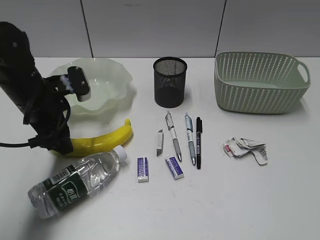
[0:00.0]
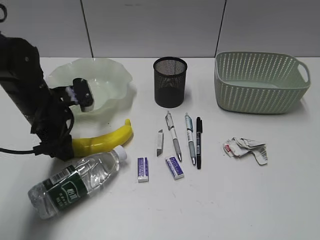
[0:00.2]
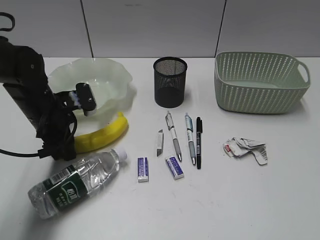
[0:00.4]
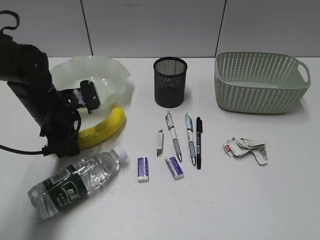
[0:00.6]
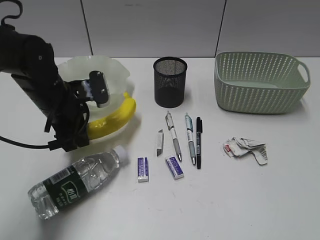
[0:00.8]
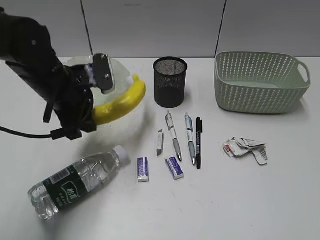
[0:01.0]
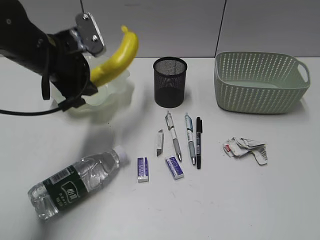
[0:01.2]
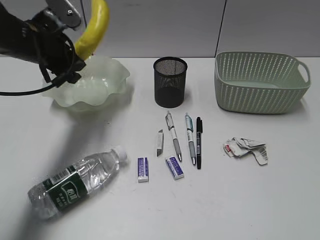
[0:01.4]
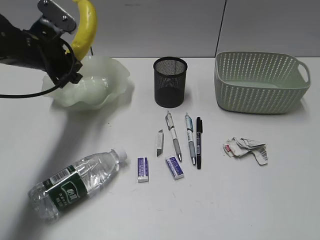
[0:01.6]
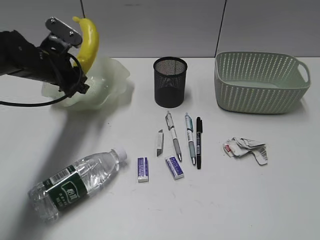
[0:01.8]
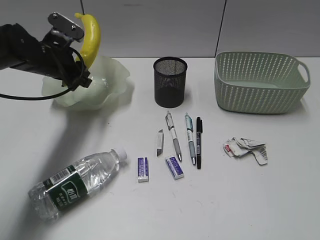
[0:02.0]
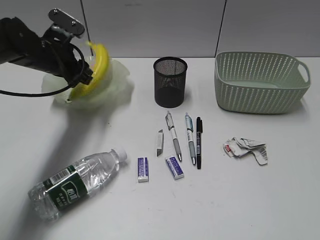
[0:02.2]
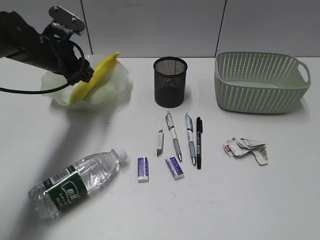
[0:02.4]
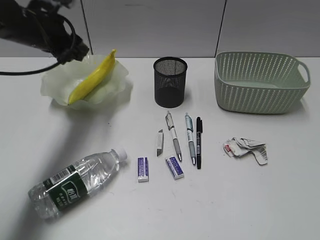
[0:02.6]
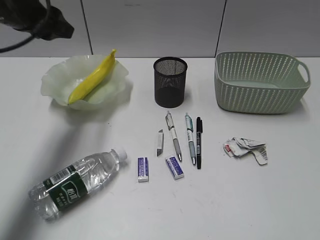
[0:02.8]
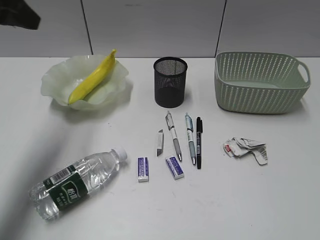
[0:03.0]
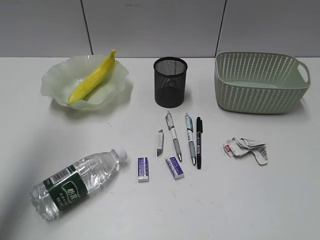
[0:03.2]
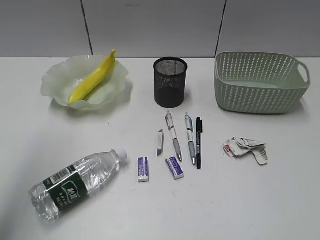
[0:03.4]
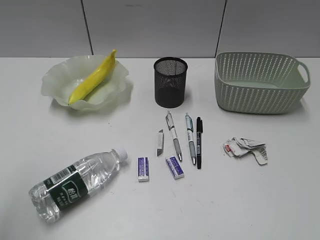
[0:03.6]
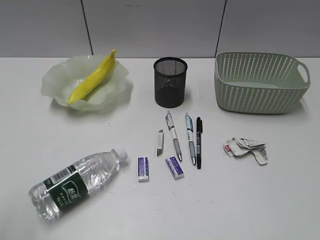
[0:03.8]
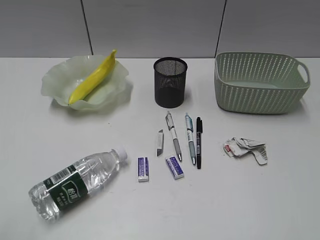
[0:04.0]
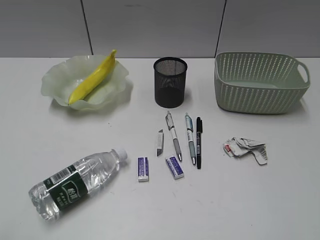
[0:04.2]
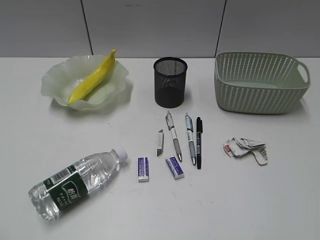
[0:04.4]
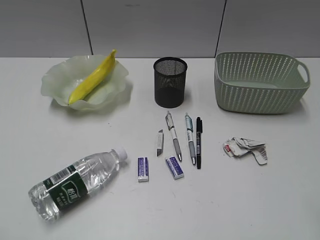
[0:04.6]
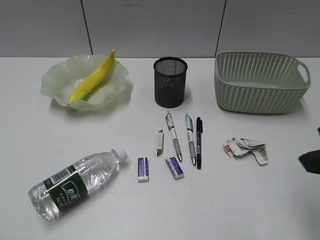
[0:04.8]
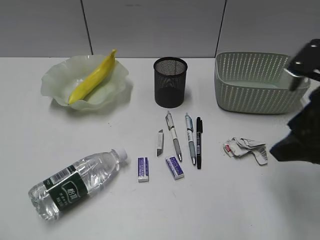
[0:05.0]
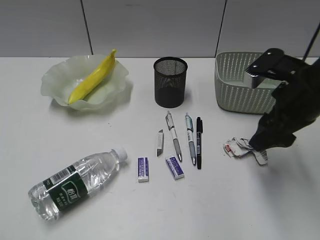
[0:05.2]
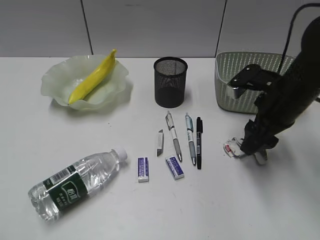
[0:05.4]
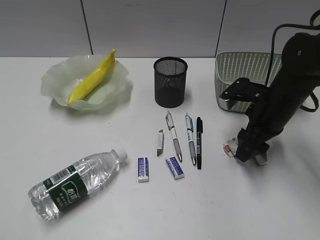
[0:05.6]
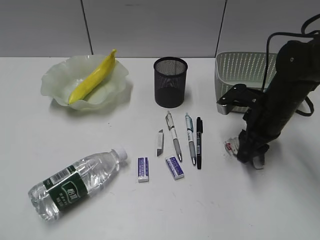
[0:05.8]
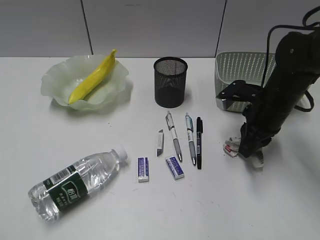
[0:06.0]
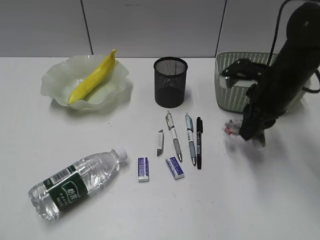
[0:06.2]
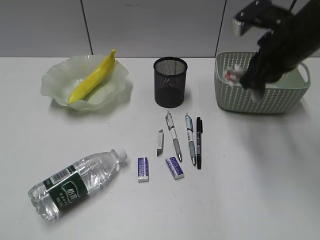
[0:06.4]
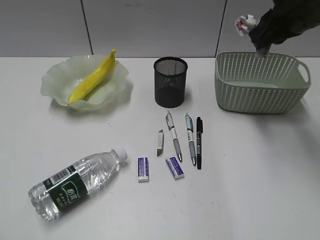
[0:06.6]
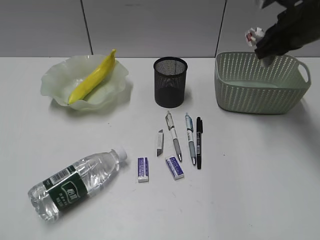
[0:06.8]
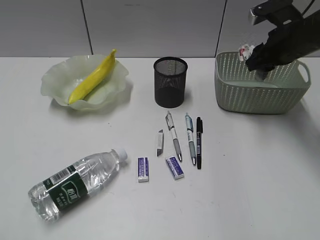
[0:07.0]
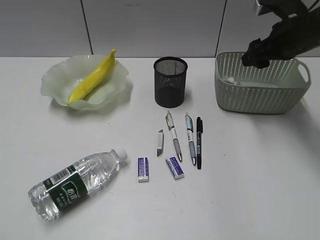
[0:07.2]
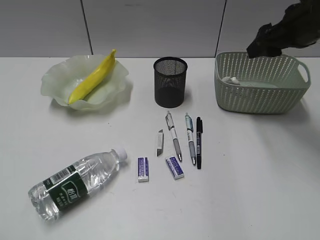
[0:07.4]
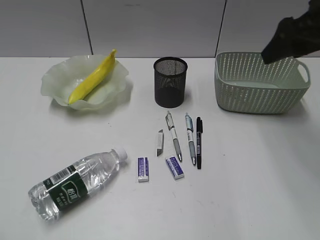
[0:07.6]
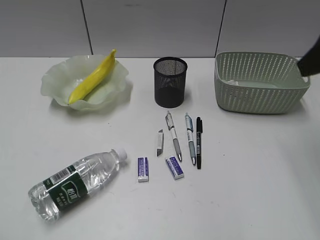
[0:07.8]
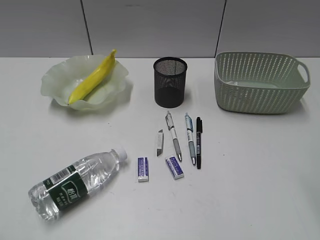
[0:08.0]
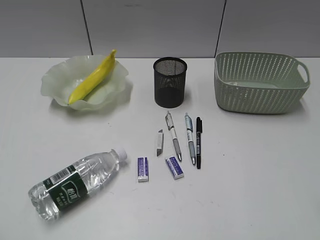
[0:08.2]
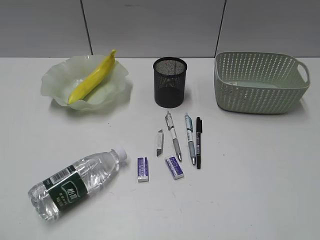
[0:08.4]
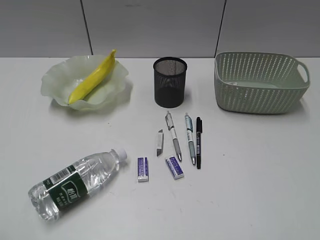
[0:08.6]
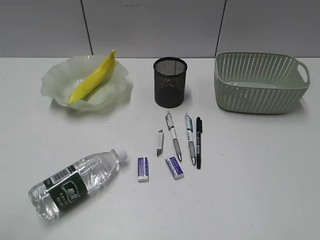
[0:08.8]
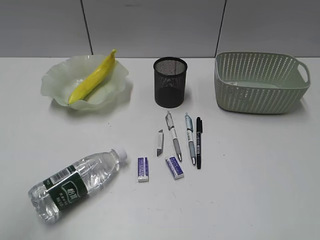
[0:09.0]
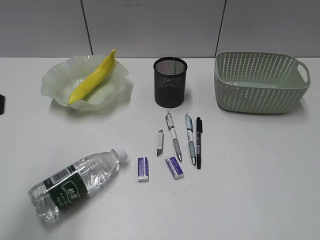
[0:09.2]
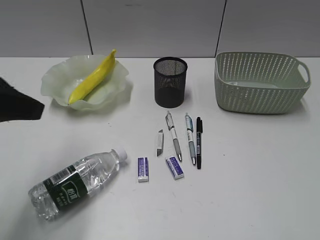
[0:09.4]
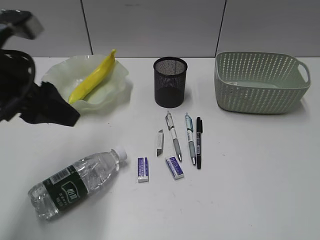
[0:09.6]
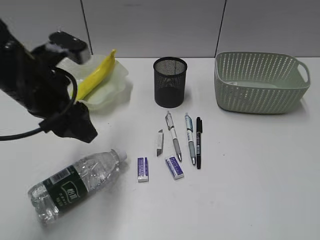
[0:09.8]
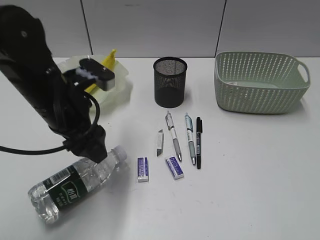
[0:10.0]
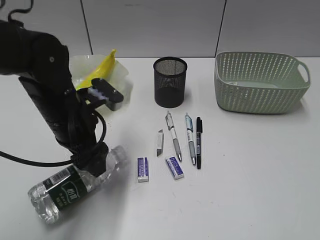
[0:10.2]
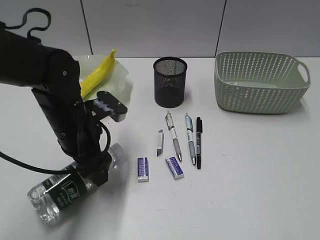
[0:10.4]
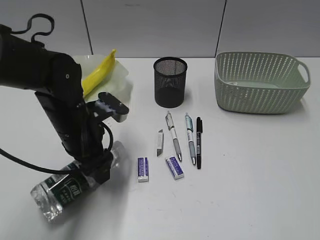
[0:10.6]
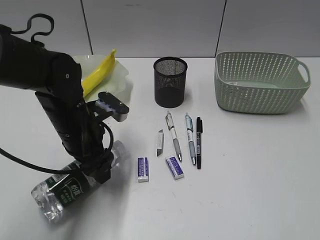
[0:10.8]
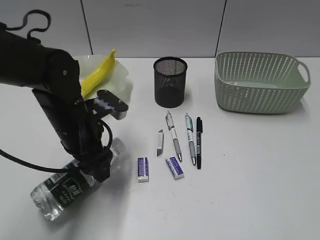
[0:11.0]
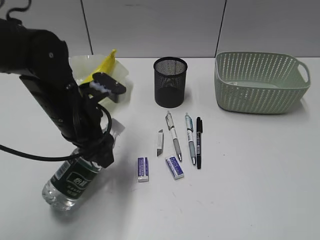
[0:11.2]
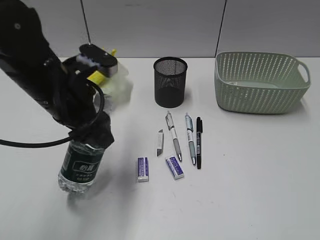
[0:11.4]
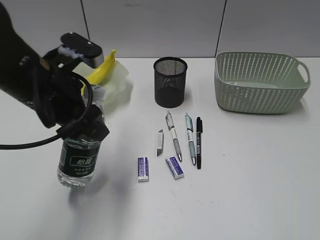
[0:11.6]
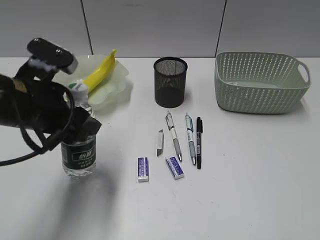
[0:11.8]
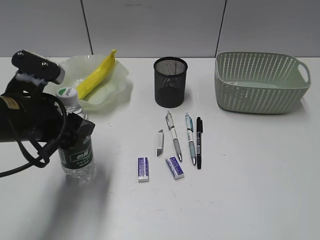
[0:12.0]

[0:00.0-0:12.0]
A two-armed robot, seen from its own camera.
Step, 0:00.6 to 0:02.4: Place the banana in the plate with left gripper.
Step, 0:02.6 to 0:05.8: Grasp the waste paper with right gripper.
Step, 0:06.0 to 0:07.2: Place the waste paper in the basket with right gripper.
Step, 0:07.4 to 0:10.6: Grasp the bottle with left gripper.
0:00.0 to 0:01.6: The left gripper is displaced forward by roughly 5 cm, goes upward and returns, approximately 5 cm each way, and closes up.
0:01.6 to 0:03.0: The left gripper moves upward and backward, roughly 15 cm.
0:03.0 to 0:04.4: The left gripper travels backward by roughly 35 cm.
0:04.4 to 0:06.0: The right gripper travels forward and downward by approximately 35 cm, and closes its fingers.
0:06.0 to 0:07.6: The right gripper swings up and down, roughly 20 cm each way, with 2 reversals, and opens.
0:07.6 to 0:09.0: The right gripper moves backward, roughly 35 cm. The left gripper moves forward, some 10 cm.
0:09.0 to 0:10.4: The left gripper travels forward, downward and to the right by about 30 cm, and opens its fingers.
0:10.4 to 0:12.0: The left gripper shifts about 5 cm to the left.

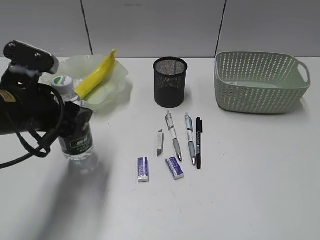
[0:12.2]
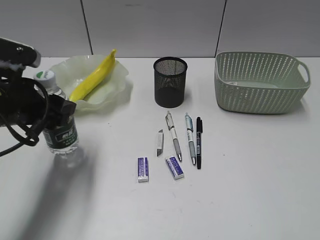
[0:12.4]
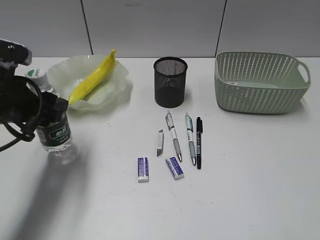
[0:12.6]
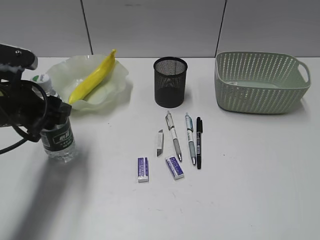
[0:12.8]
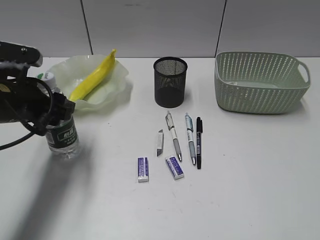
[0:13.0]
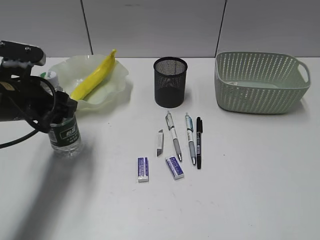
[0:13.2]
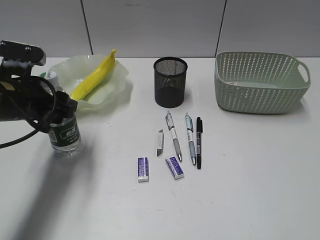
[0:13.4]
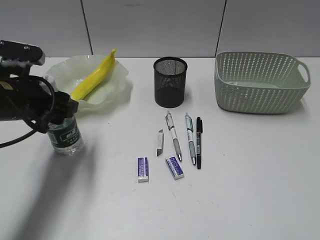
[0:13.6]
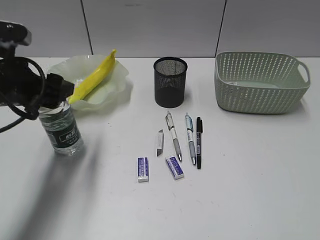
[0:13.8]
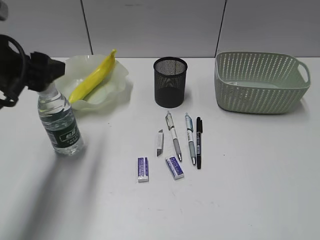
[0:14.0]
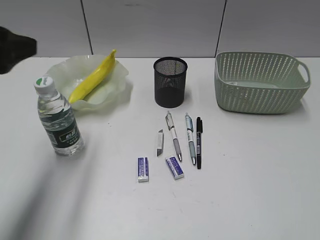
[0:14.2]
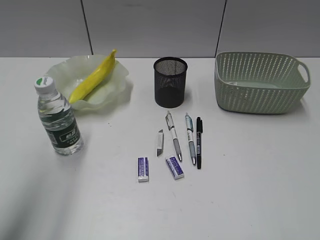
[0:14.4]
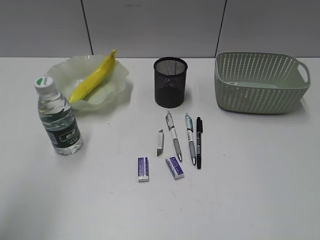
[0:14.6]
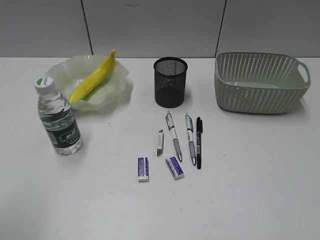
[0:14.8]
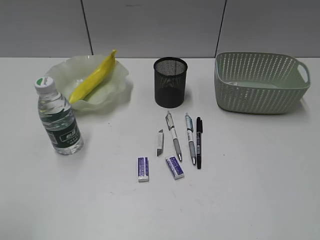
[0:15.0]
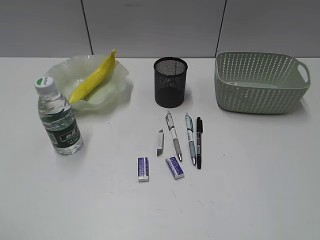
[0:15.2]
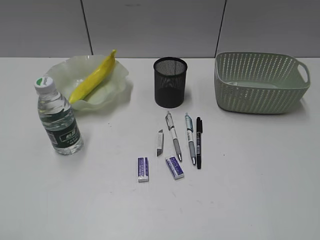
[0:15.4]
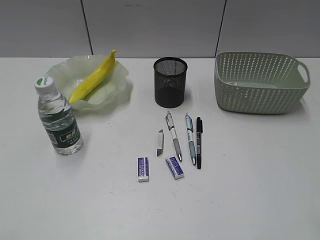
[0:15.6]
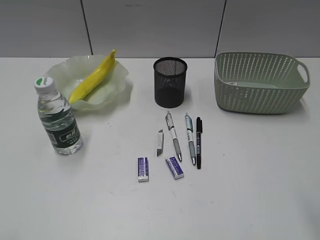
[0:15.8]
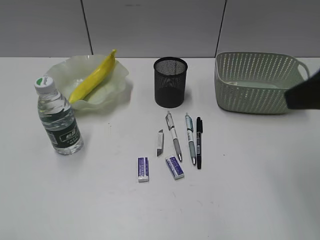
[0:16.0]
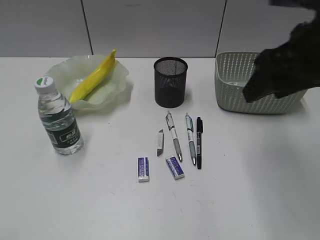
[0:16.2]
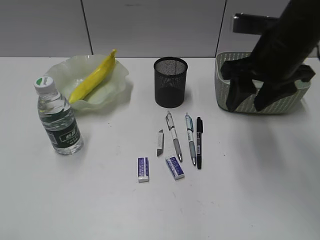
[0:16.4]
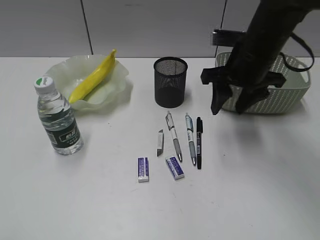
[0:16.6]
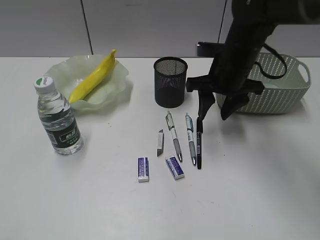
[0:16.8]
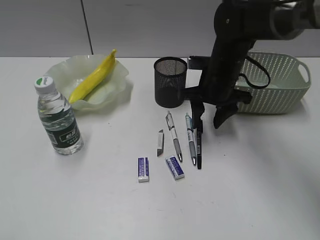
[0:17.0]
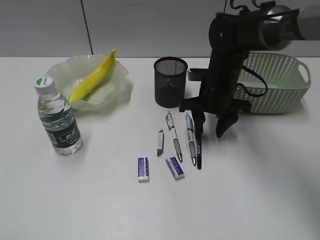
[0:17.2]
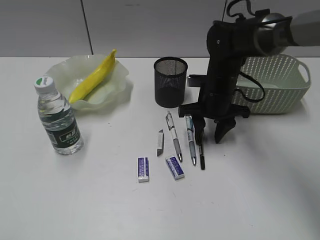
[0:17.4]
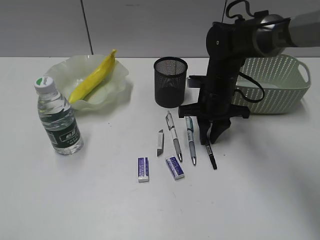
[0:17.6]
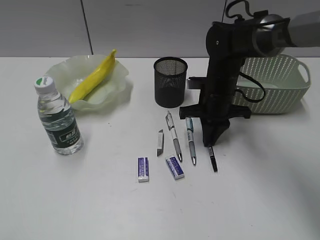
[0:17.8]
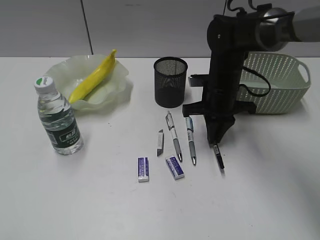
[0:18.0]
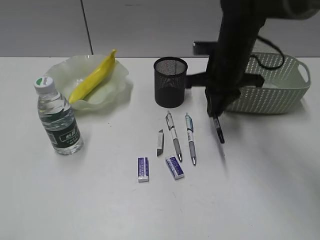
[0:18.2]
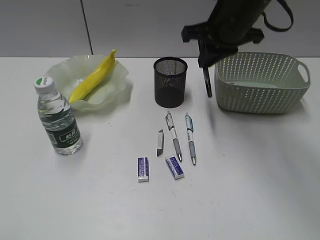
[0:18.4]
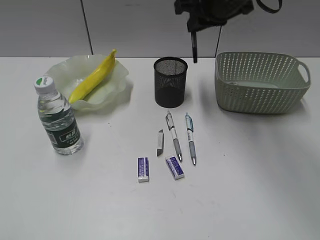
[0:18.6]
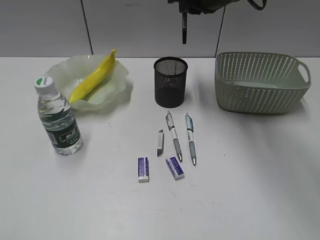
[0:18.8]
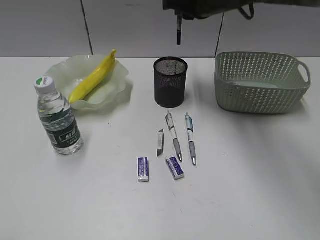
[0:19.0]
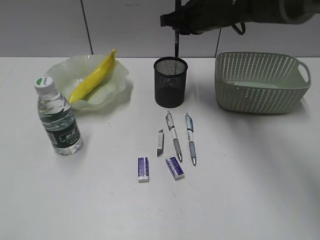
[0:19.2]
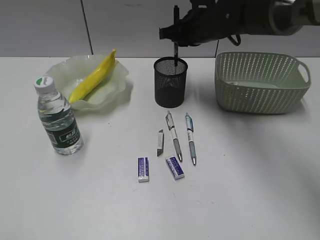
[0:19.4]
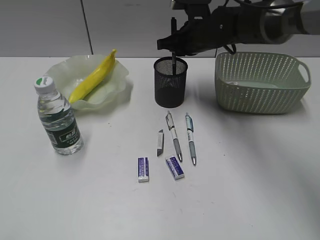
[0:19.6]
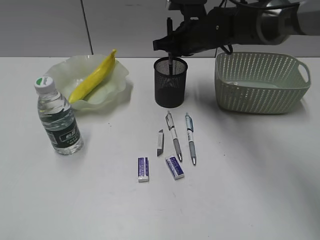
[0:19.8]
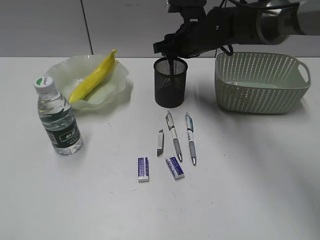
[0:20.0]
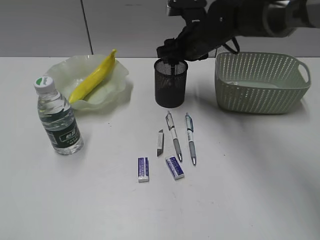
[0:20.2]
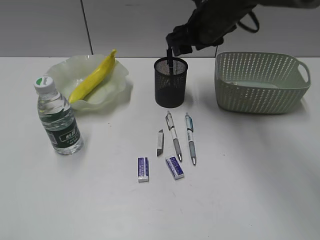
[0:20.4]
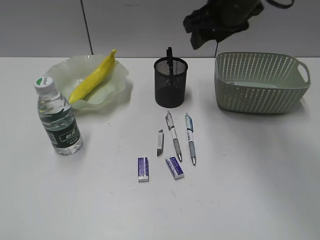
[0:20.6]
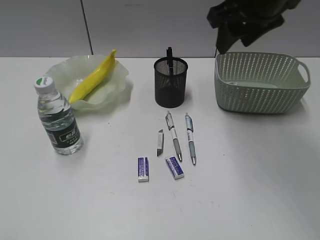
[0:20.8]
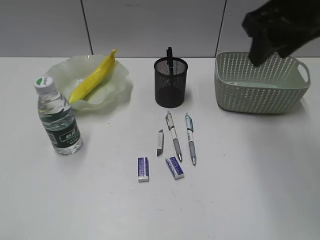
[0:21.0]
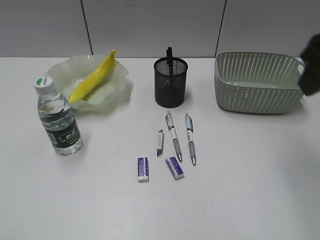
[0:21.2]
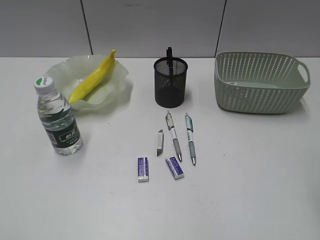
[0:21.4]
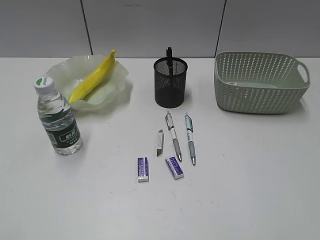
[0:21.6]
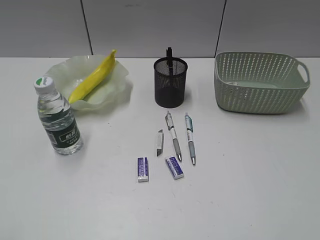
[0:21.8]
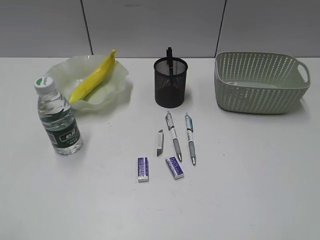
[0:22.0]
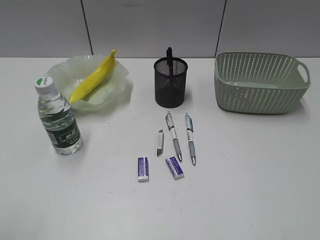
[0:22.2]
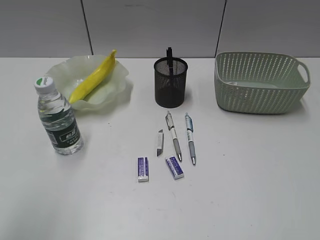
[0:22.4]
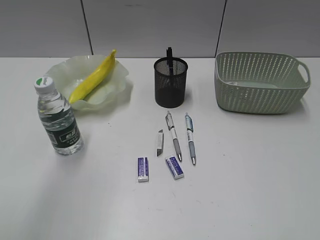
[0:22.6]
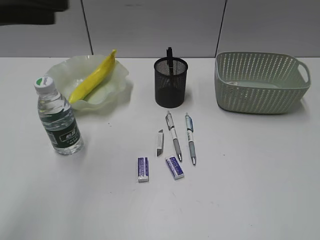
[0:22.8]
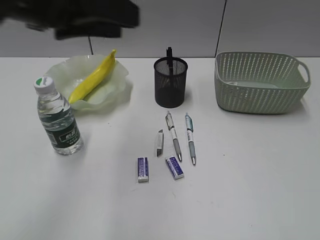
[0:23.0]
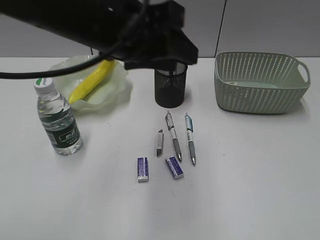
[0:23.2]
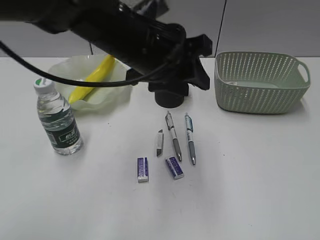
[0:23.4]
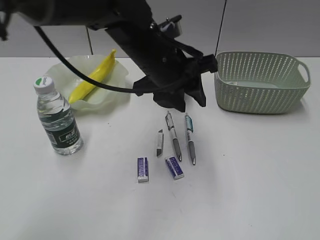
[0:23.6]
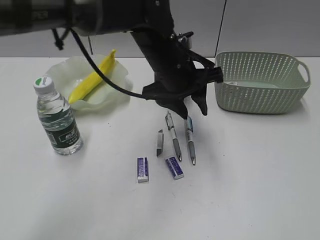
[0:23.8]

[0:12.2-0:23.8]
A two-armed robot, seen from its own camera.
Step, 0:12.2 to 0:14.0: Stand the bottle with left gripper.
Step, 0:14.2 to 0:17.6: Grasp the black pen with right gripper.
Step, 0:17.8 to 0:20.2: Place the black pen in pen holder with right gripper.
0:12.2 to 0:13.6: The left gripper changes place by approximately 5 cm.
0:13.6 to 0:15.0: The left gripper heads backward and upward, covering approximately 30 cm, and closes.
0:15.0 to 0:16.6: The right gripper goes approximately 40 cm forward and to the left.
0:16.6 to 0:18.0: The right gripper goes some 10 cm downward, and closes its fingers.
0:18.0 to 0:19.4: The right gripper goes some 10 cm upward and forward.
0:19.4 to 0:21.0: The right gripper shifts some 25 cm backward, upward and to the right, and opens its fingers.
0:21.0 to 0:22.4: The right gripper travels backward and to the right by some 35 cm, while the left gripper is displaced forward and upward by roughly 10 cm.
0:22.4 to 0:23.8: The left gripper goes roughly 40 cm to the right, forward and downward.
